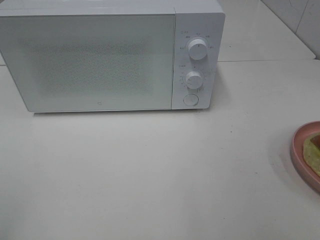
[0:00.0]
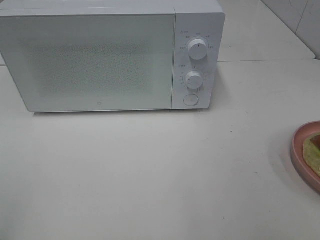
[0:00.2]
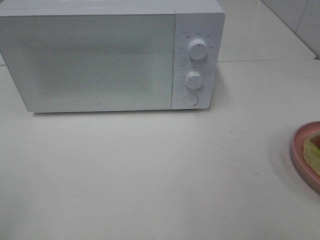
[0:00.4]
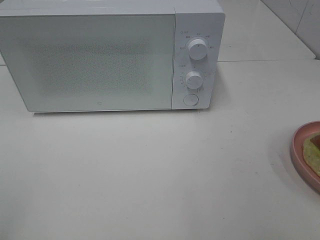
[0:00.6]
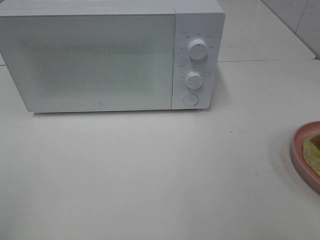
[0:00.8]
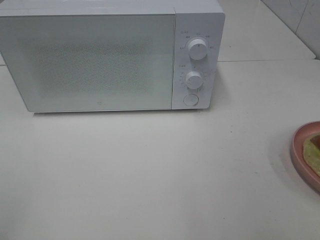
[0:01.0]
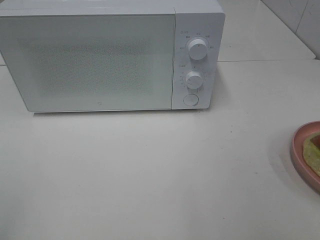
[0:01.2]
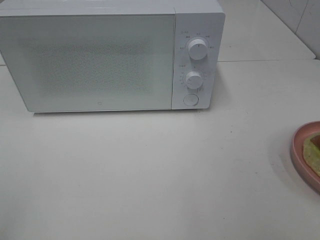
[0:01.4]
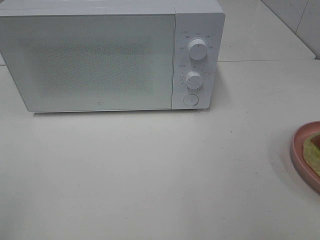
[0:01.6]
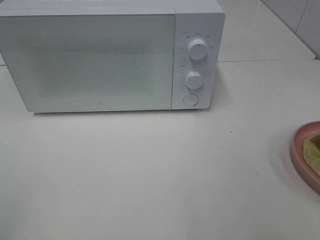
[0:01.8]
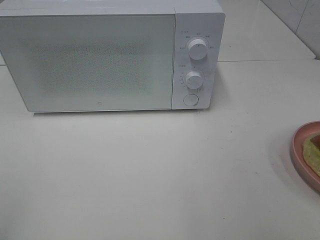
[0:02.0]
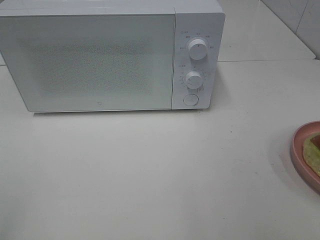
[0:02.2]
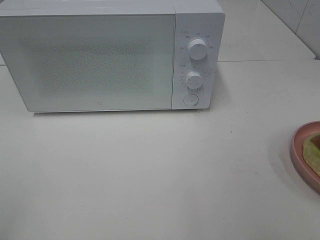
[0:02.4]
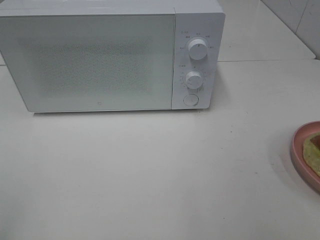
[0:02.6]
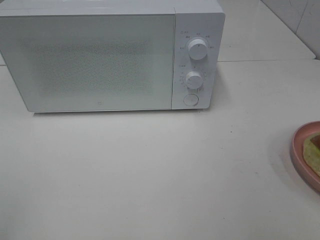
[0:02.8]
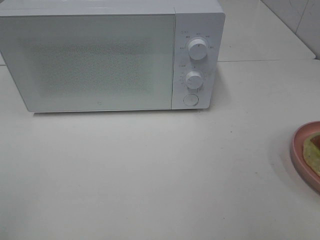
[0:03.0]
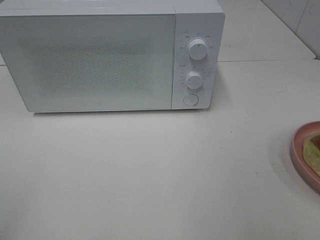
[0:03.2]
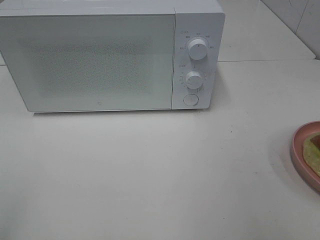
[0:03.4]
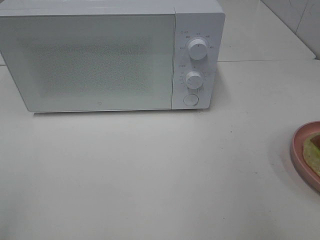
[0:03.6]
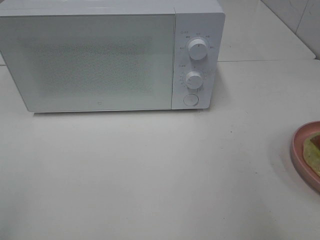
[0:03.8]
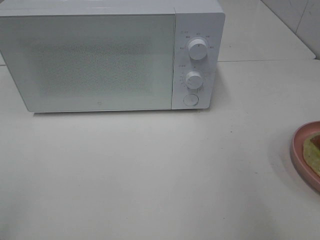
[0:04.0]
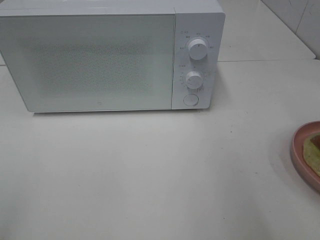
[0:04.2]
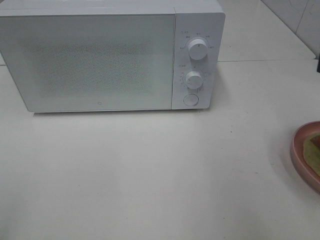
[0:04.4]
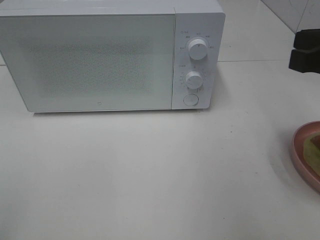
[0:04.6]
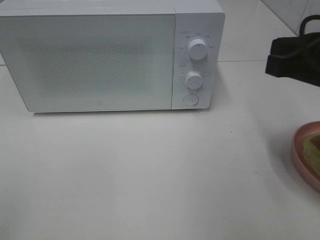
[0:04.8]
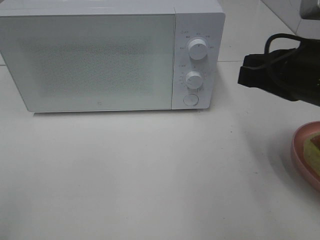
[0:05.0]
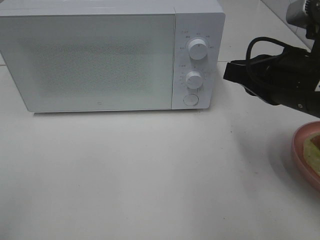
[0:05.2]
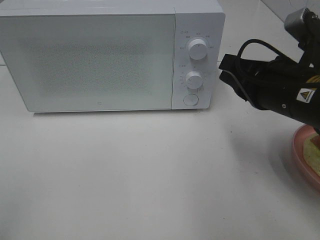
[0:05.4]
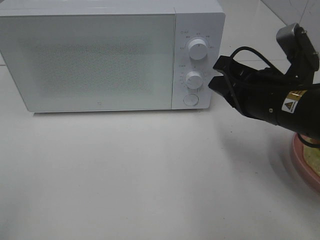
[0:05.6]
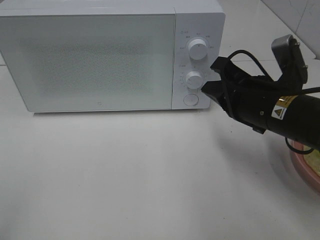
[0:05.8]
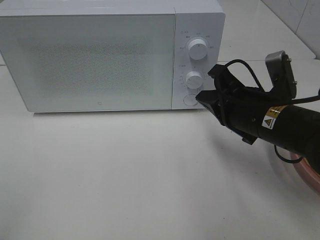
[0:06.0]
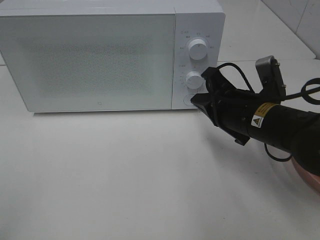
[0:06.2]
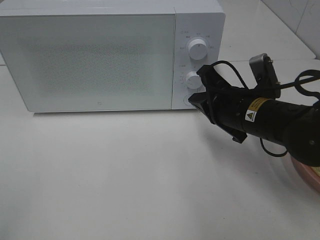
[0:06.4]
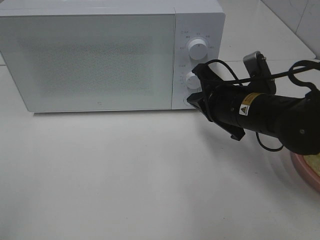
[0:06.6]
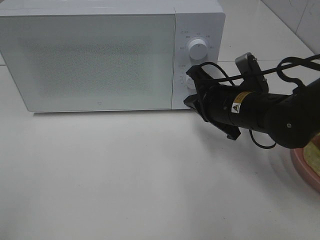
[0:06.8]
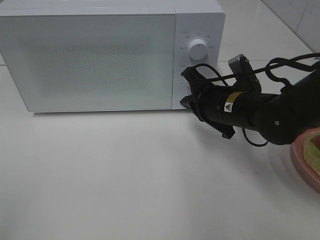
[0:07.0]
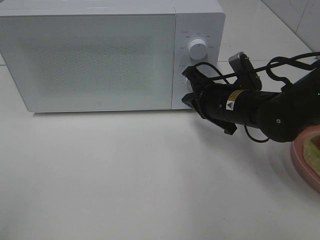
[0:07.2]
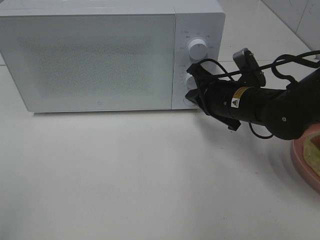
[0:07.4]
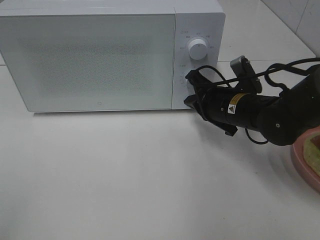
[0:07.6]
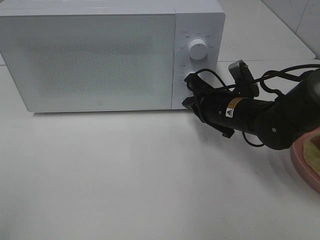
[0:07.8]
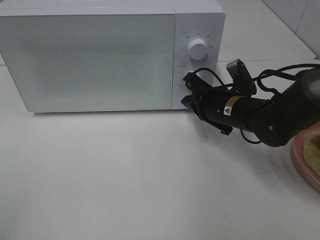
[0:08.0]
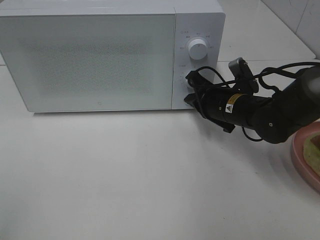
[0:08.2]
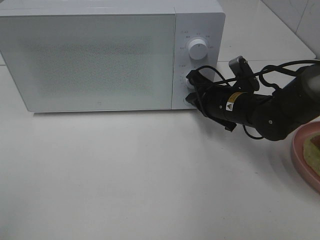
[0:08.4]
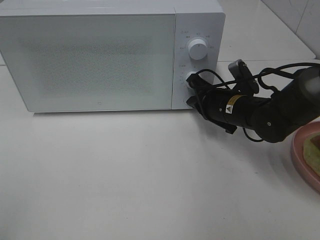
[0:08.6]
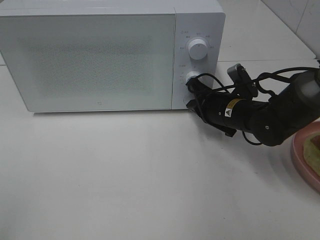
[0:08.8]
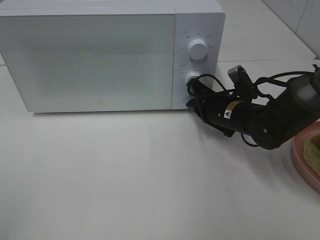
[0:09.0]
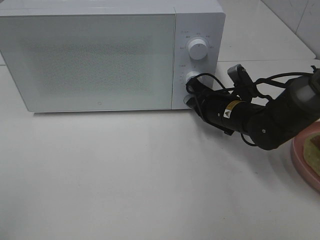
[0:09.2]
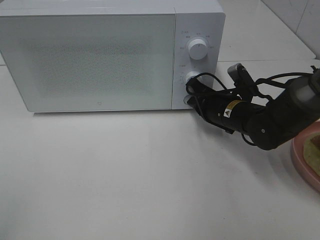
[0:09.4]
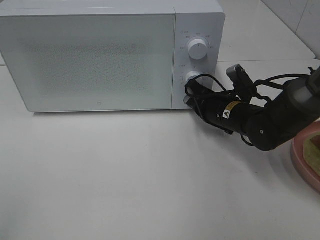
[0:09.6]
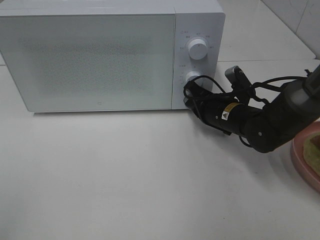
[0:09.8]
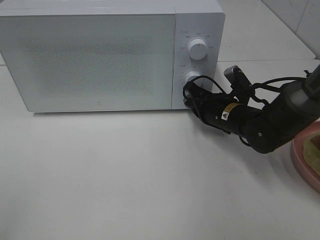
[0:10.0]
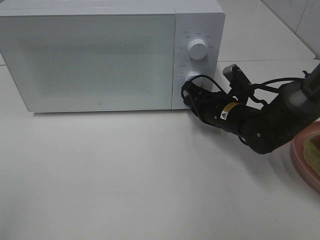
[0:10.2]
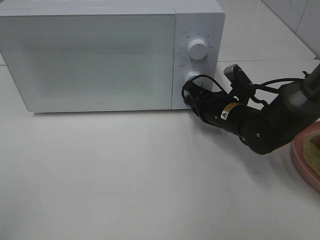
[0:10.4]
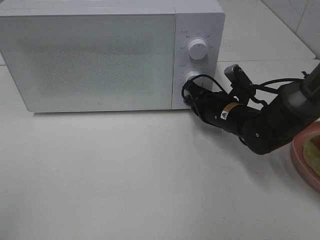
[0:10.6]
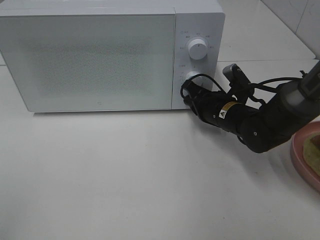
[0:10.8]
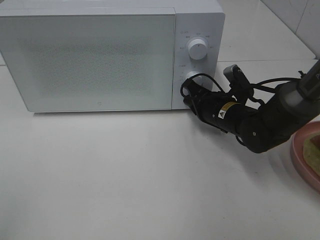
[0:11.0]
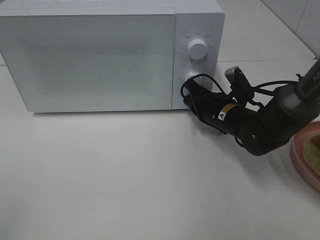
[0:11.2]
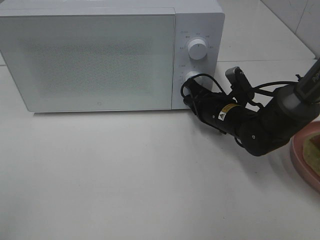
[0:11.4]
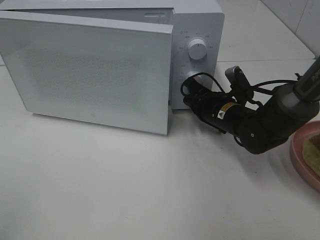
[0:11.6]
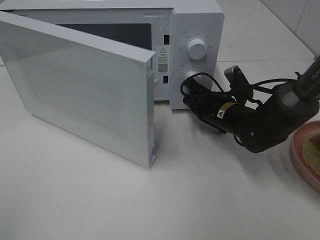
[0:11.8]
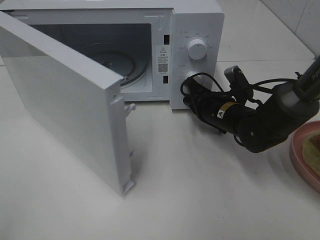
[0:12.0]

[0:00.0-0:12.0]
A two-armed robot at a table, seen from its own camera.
Task of the whole recording: Heat Sandwich.
0:00.0 to 0:01.6: Neither gripper changes place.
0:04.4 to 0:06.0: The right gripper goes some 20 cm downward, to the left and forward.
0:06.0 to 0:07.6: The right gripper moves forward, roughly 10 cm.
0:07.6 to 0:10.4: There are only small adjustments of the grippers.

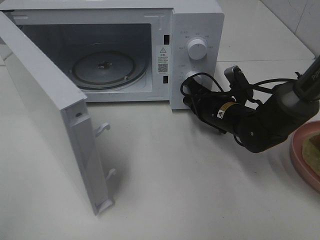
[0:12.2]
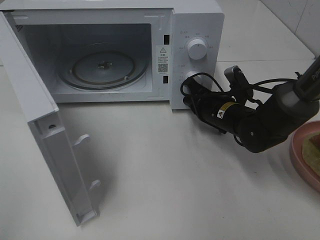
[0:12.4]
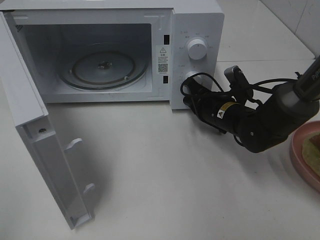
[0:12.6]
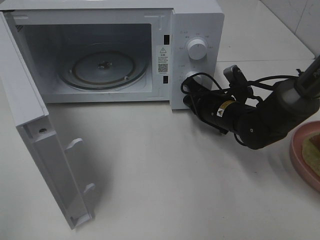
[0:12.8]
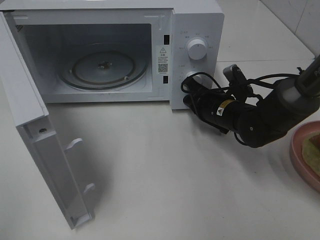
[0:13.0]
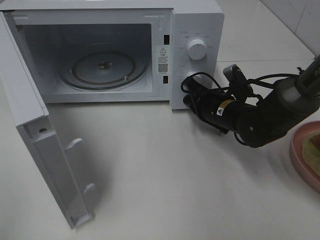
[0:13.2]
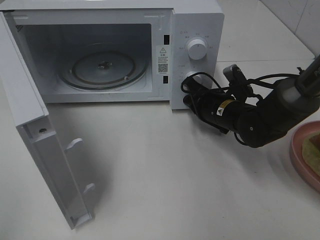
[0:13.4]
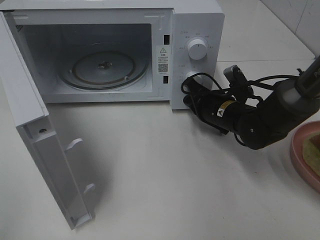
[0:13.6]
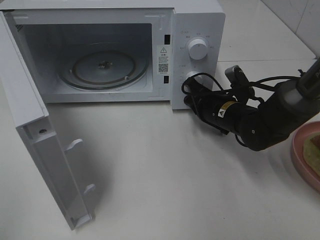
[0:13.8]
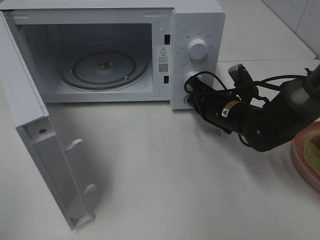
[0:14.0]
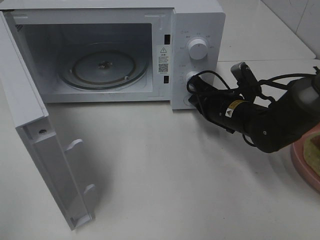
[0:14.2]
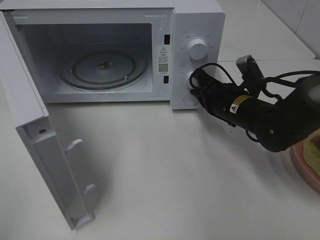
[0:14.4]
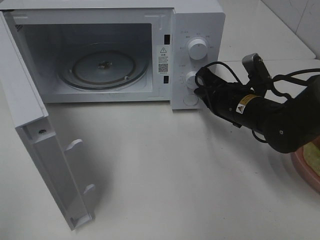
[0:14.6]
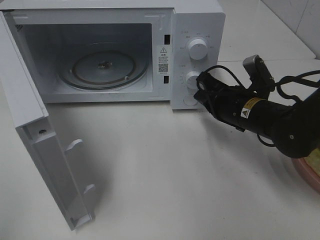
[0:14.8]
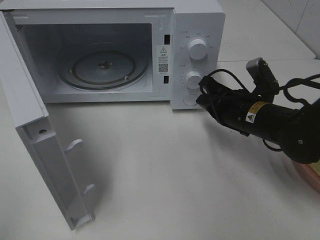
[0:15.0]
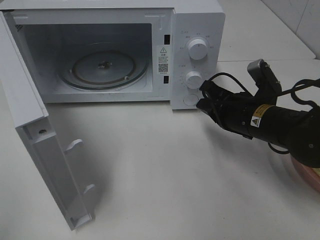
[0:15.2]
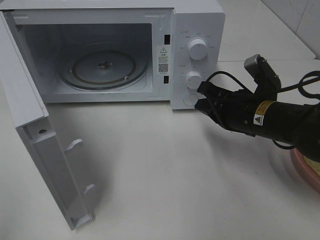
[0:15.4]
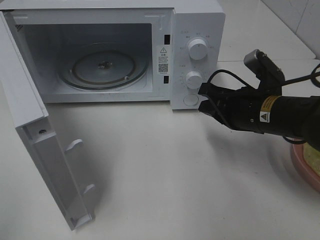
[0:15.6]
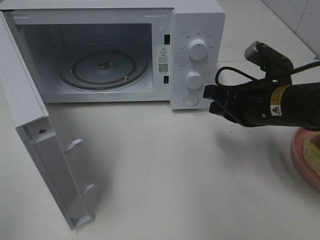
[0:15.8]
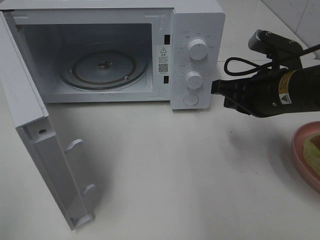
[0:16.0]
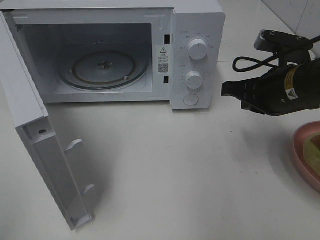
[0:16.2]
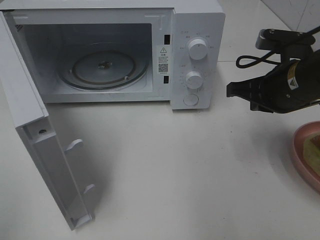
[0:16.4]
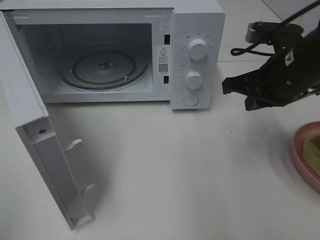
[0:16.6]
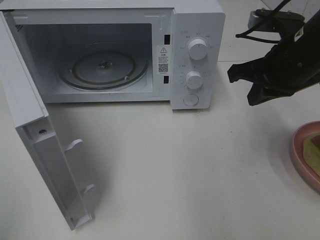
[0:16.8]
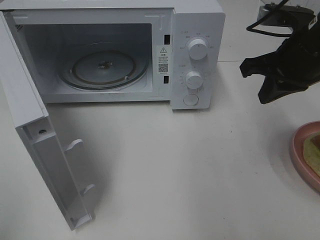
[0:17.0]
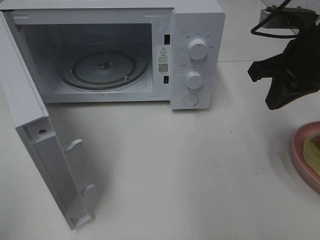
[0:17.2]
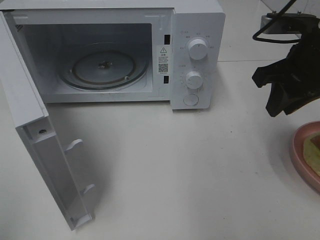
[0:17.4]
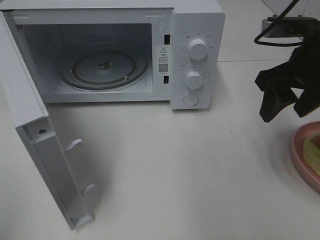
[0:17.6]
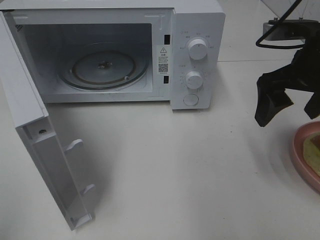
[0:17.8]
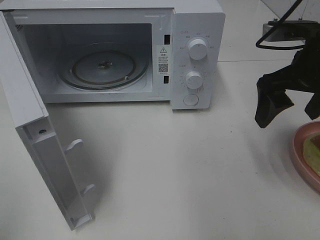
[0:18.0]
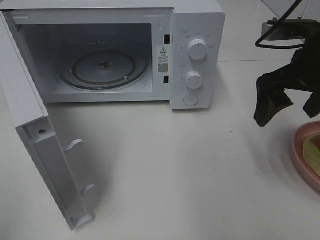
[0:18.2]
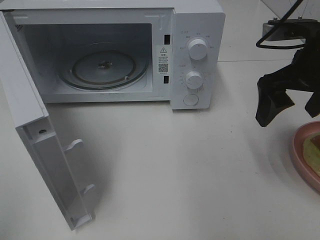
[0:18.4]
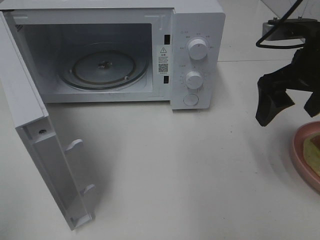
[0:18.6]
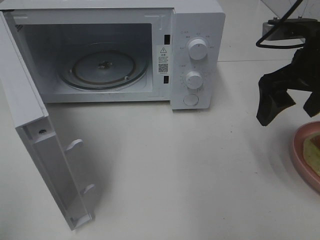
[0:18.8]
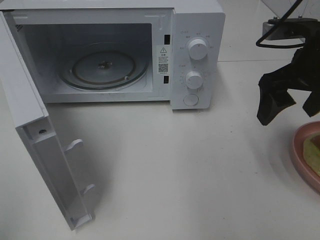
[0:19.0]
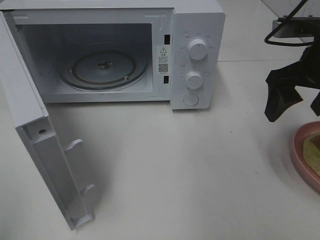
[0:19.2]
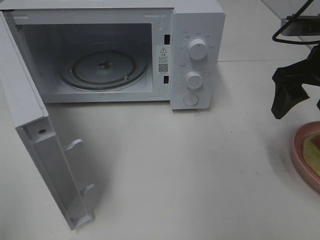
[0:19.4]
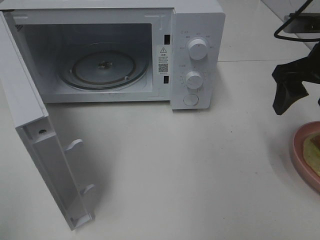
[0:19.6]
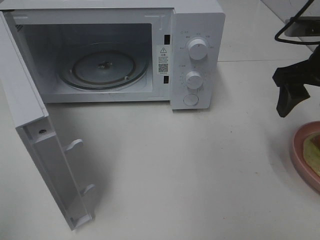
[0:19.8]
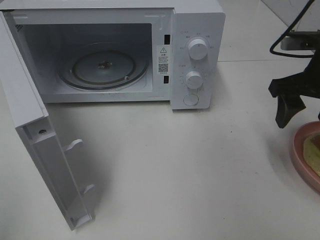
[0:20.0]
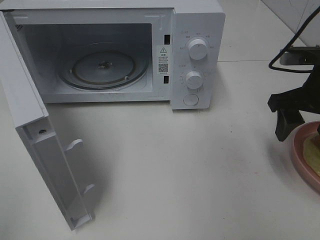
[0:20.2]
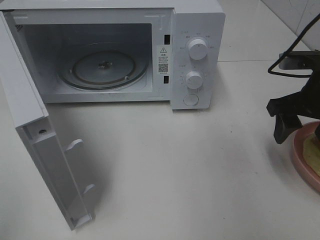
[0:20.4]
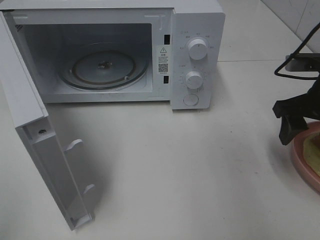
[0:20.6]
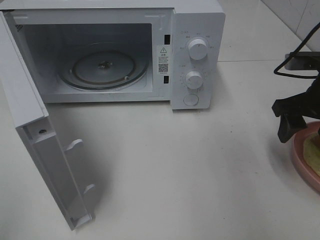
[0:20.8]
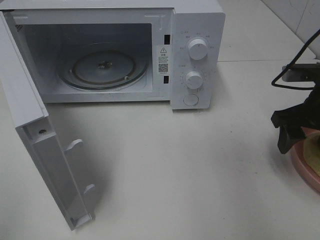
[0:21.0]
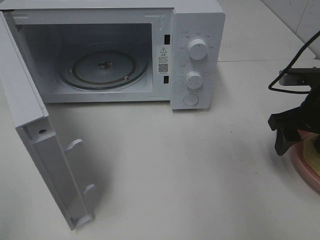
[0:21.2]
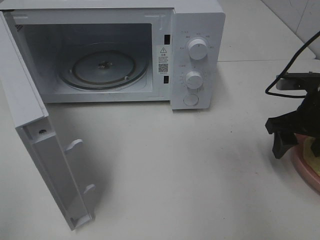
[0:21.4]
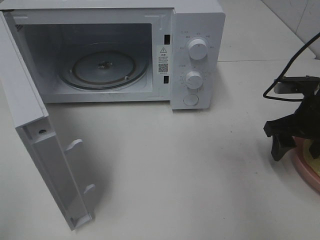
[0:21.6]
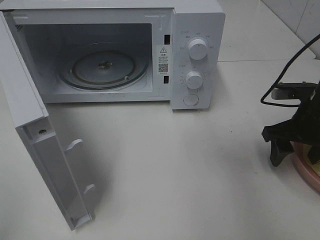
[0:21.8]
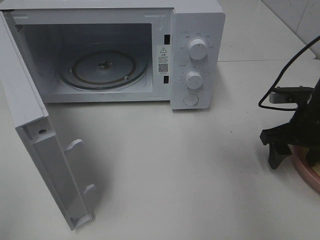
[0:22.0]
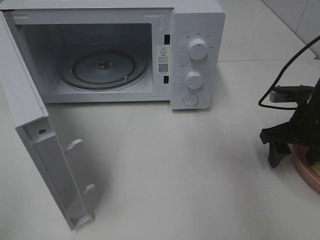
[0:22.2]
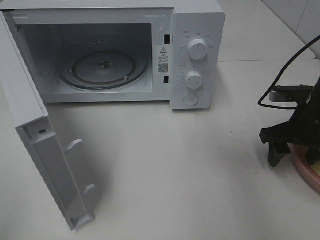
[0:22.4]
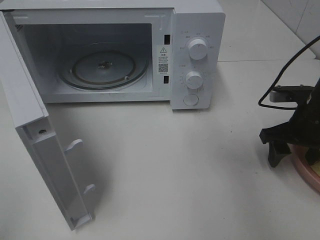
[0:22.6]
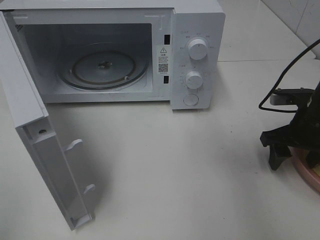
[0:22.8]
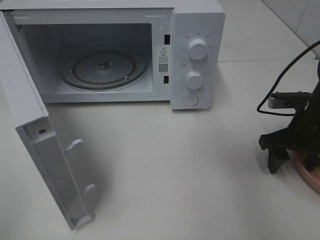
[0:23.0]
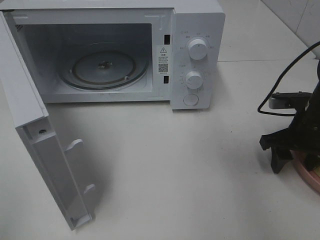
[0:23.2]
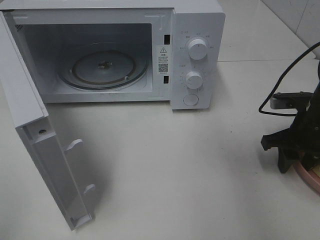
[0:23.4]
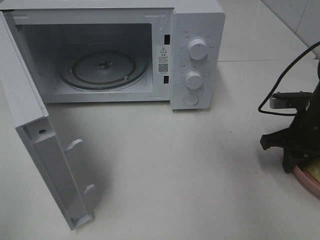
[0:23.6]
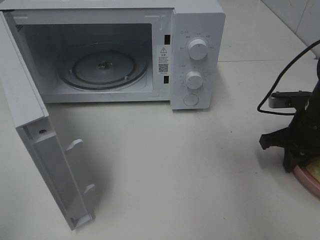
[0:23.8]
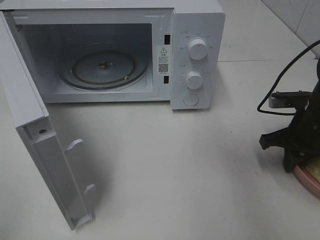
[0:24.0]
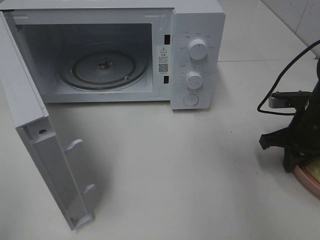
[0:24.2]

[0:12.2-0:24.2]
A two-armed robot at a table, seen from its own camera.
Task of the whole recording: Heat Sandwich.
Step, 0:12.2 to 0:14.2: Right hand: press the switch.
0:12.2 to 0:13.8: Both grippers stay about where they are.
0:13.8 to 0:15.2: The right gripper goes about 5 cm backward.
0:15.2 to 0:16.6: The right gripper heads upward, covering roughly 10 cm.
0:16.6 to 0:18.2: The right gripper opens.
0:18.2 to 0:19.8: There are only small adjustments of the grippers.
0:19.8 to 0:21.2: The right gripper goes roughly 10 cm downward.
0:21.2 to 0:22.6: The grippers make only small movements.
0:22.6 to 0:24.2: The right gripper closes its fingers.
